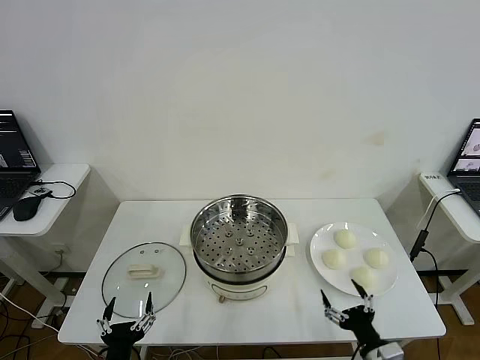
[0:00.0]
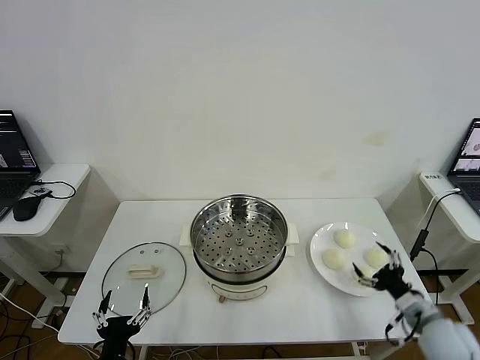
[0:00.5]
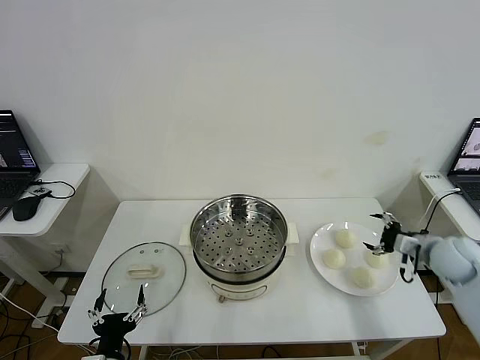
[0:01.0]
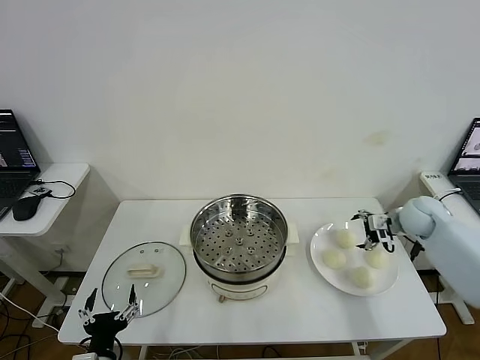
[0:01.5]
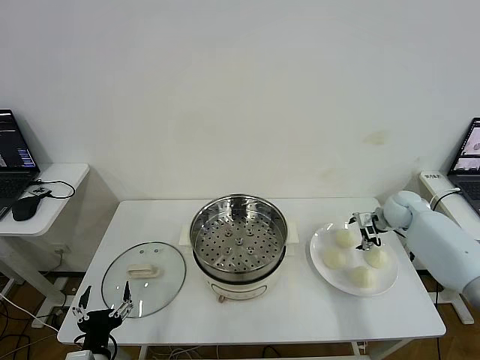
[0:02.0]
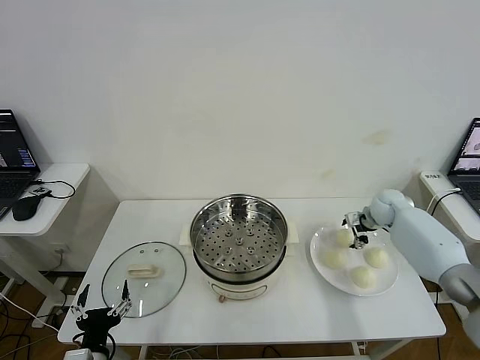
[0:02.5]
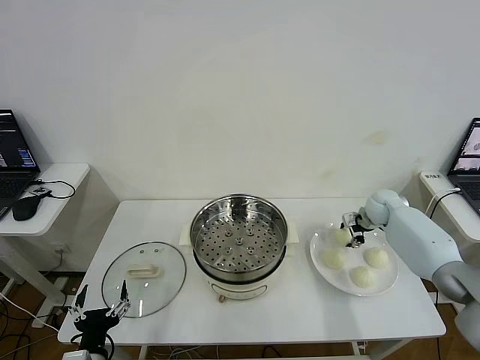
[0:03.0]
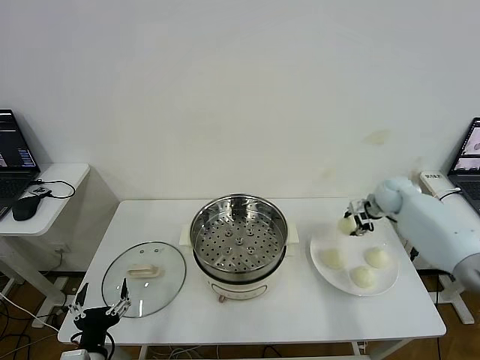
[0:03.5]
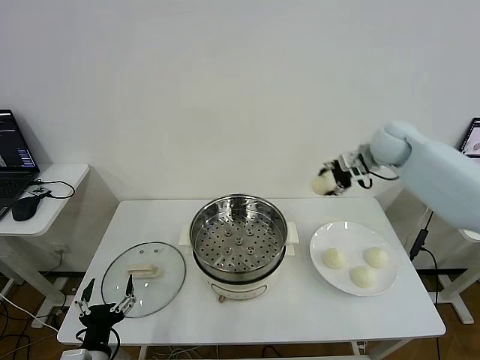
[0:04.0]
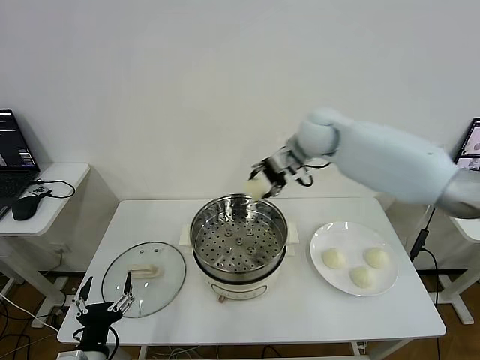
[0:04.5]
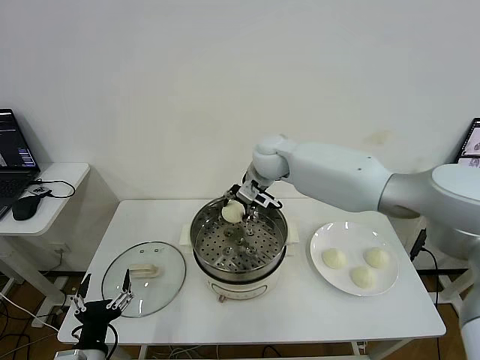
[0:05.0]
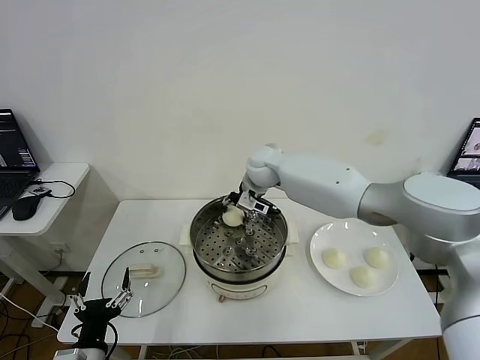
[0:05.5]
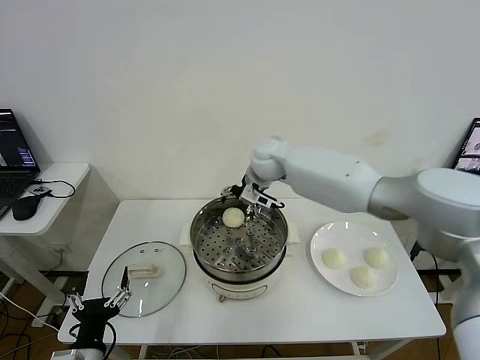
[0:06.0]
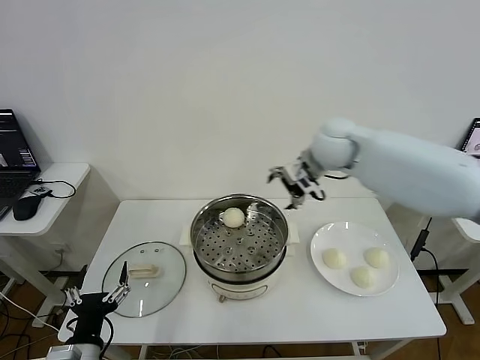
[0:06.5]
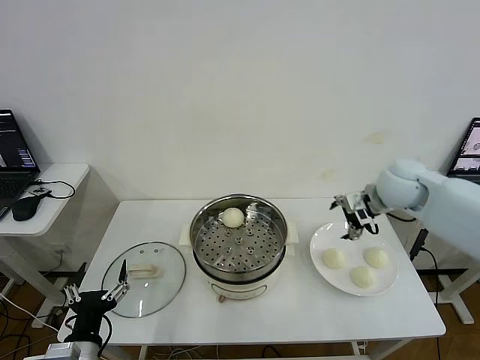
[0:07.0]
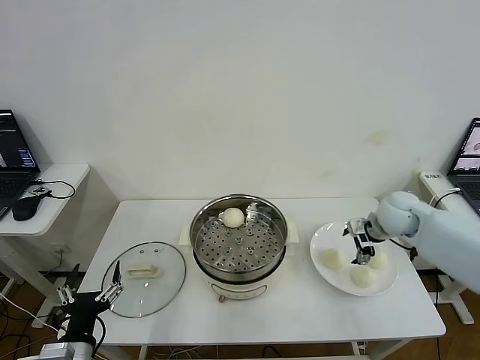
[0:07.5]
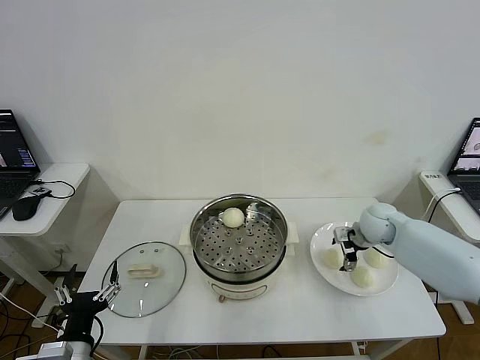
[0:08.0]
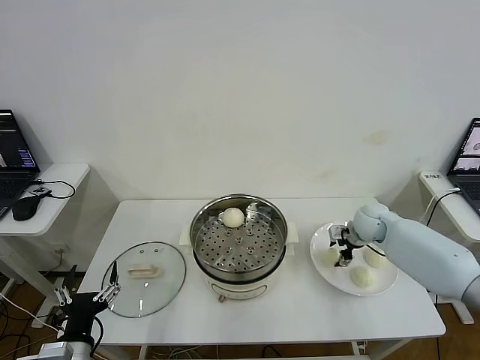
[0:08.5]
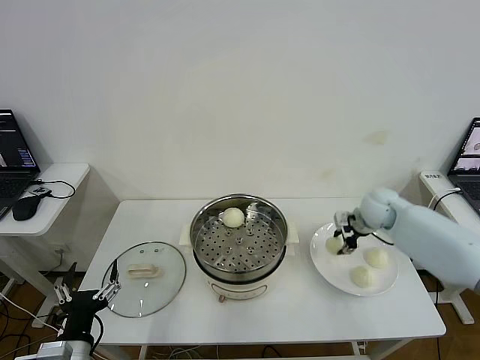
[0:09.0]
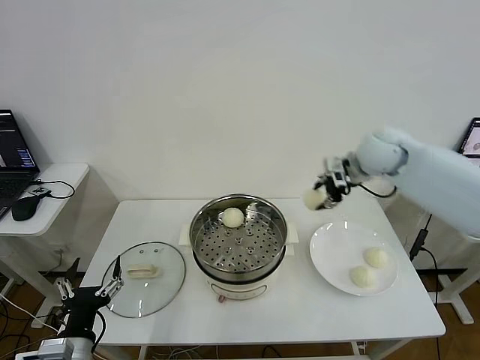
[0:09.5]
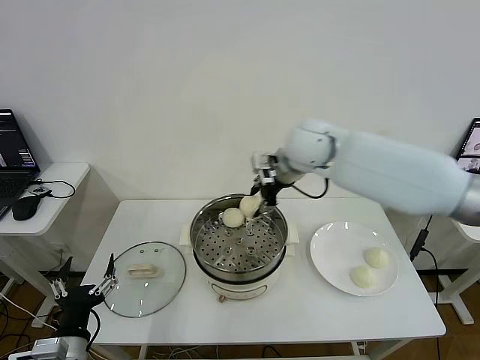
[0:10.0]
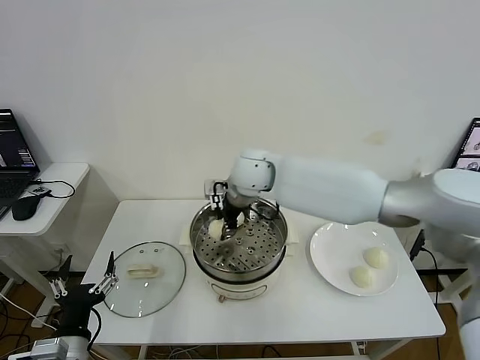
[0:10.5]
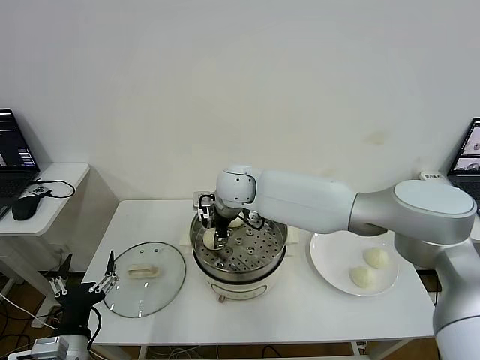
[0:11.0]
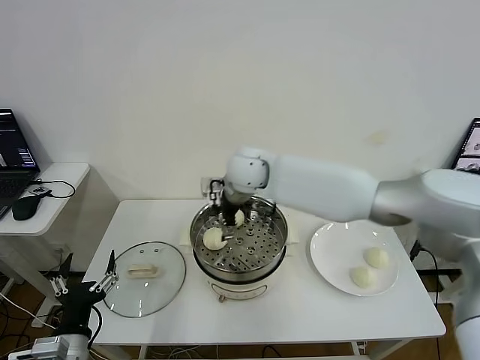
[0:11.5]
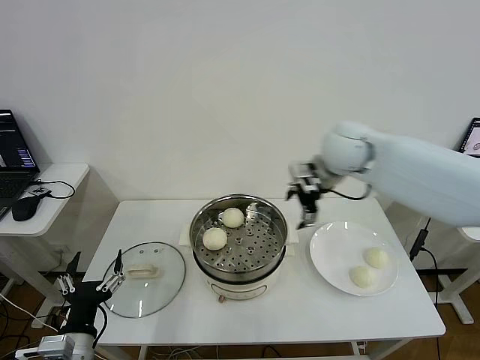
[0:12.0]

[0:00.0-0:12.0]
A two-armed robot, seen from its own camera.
Step, 0:00.0 to 0:02.5: Grasp the baozi in the plate with right gripper.
Step, 0:03.0 to 0:05.5: Place the baozi on the steamer with right gripper.
Step, 0:06.0 to 0:08.5: Grasp the baozi in the plate with right gripper.
Step, 0:09.0 to 0:11.0: Place the baozi on the steamer with right gripper.
0:02.0 to 0:04.0: The right gripper travels upward and to the left by about 25 cm, and closes up.
0:04.0 to 0:06.0: The right gripper travels to the left by about 20 cm, and opens up.
0:06.0 to 0:08.0: The right gripper shifts about 30 cm to the right and downward.
0:08.0 to 0:10.0: The right gripper moves to the left and upward, about 30 cm, and closes its fingers.
0:10.0 to 0:12.0: The right gripper moves to the right, some 15 cm, and opens its fingers.

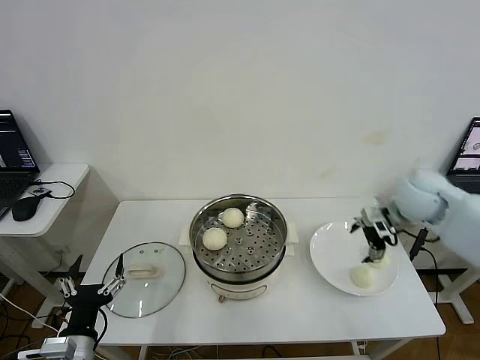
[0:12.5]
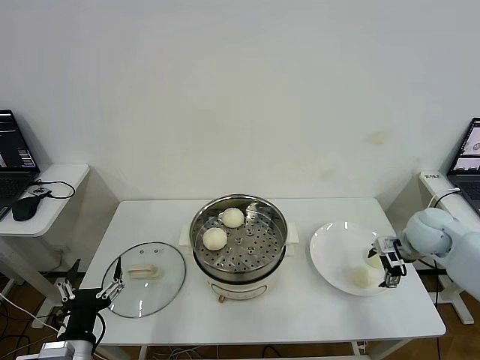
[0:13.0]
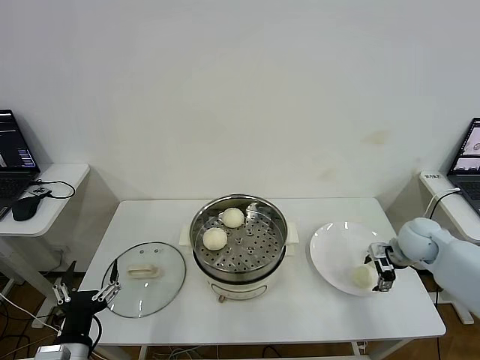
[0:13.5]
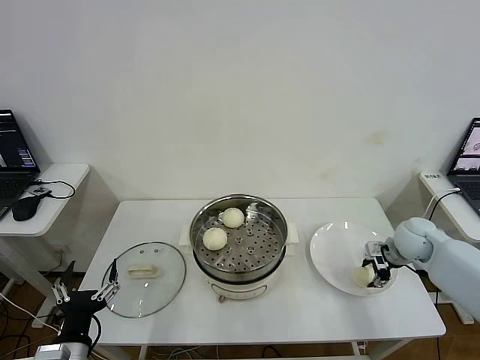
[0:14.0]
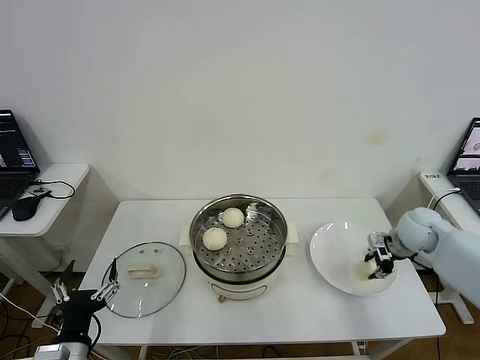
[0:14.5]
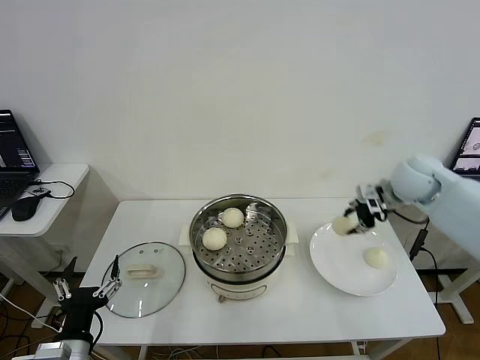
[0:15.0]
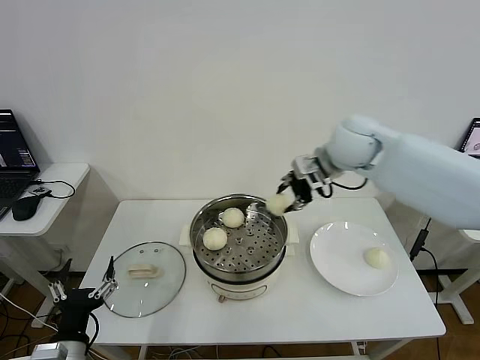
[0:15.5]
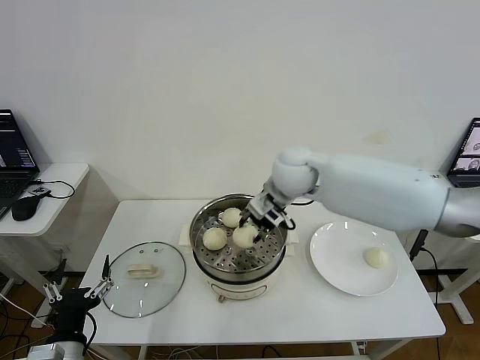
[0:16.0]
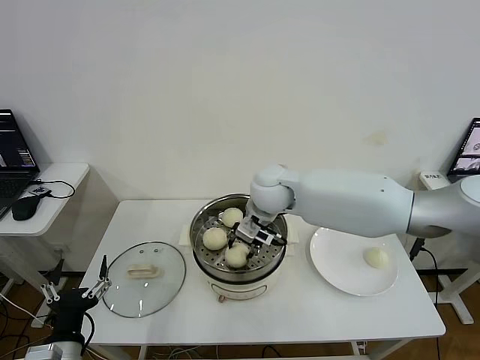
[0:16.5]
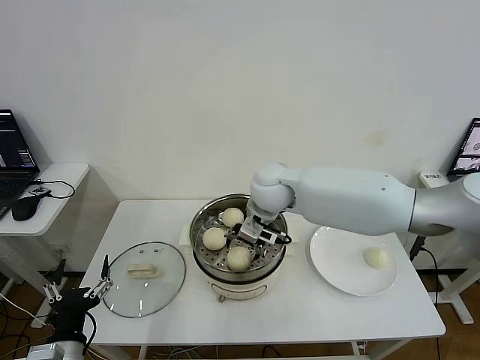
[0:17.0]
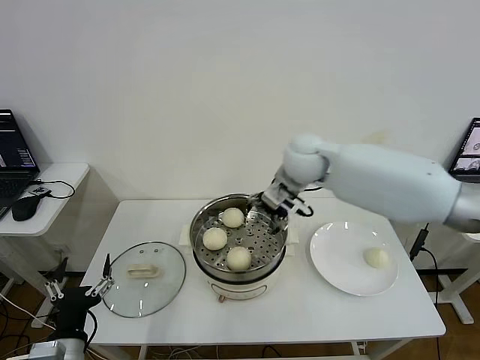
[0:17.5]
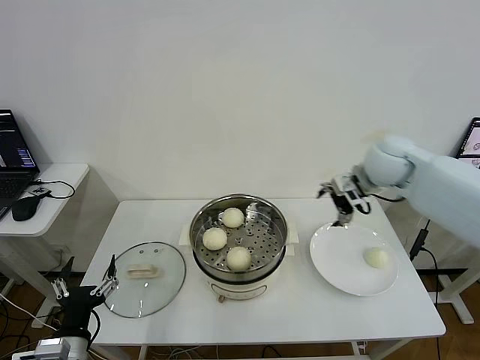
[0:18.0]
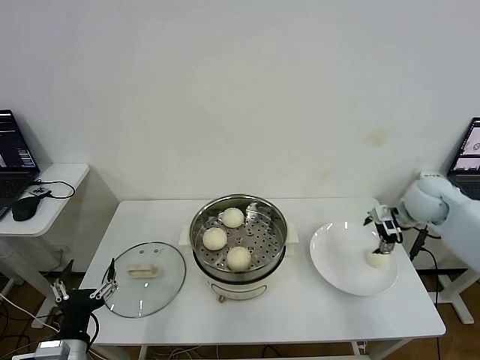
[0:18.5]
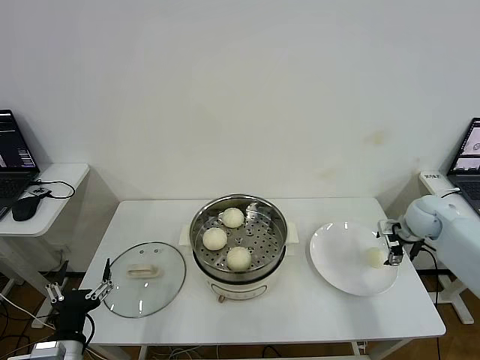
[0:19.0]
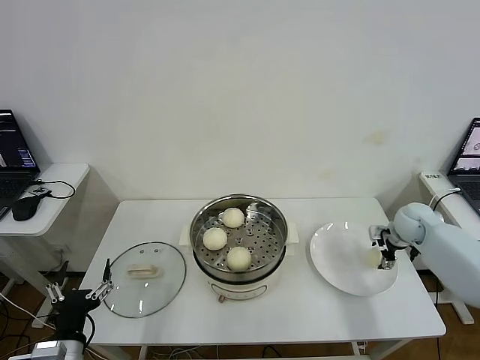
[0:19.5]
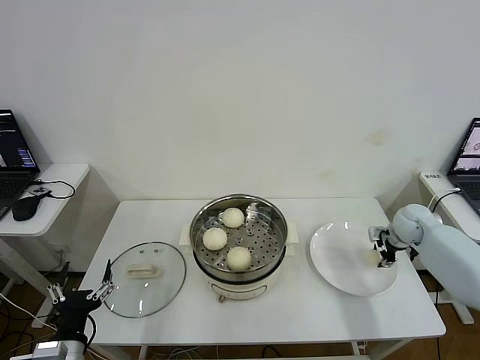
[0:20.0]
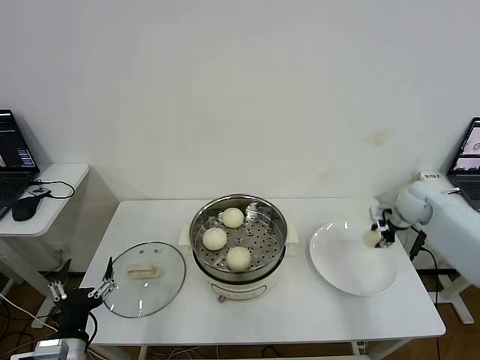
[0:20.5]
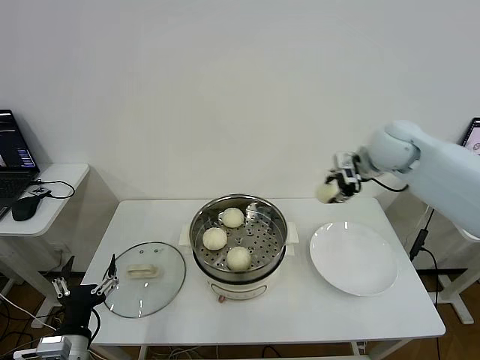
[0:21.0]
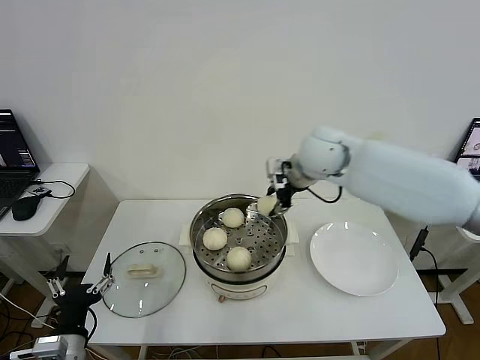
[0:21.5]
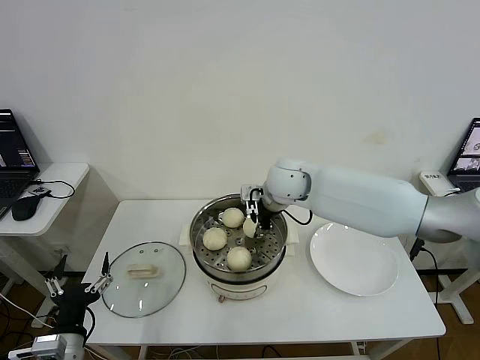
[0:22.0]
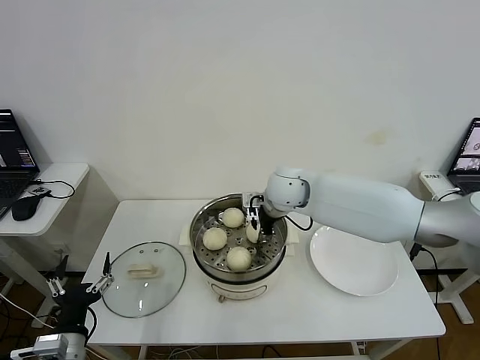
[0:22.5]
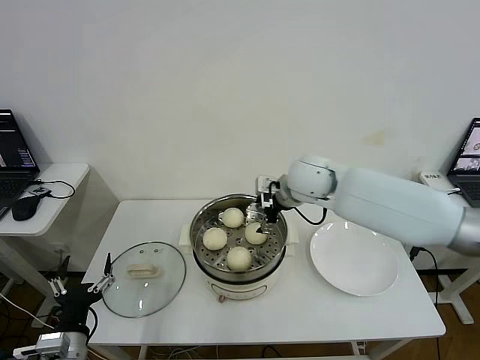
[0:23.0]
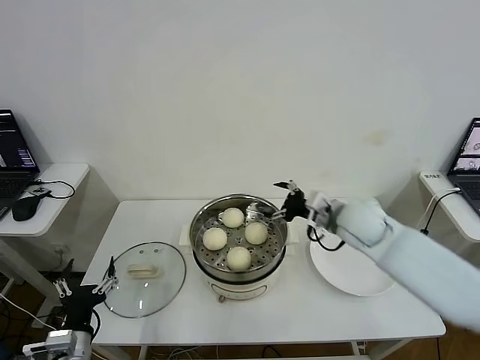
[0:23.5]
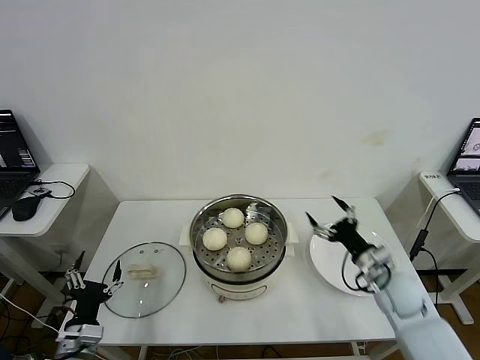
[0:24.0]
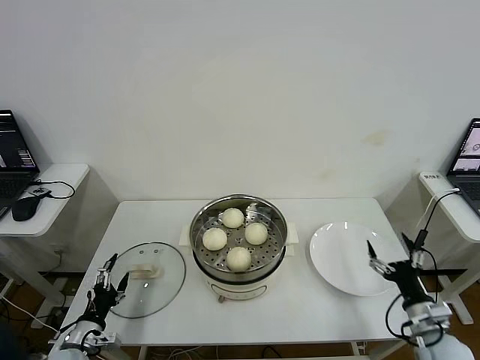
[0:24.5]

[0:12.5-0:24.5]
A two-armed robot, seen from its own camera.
Step, 0:12.5 to 0:14.0: Grasp the baozi in the plate with right gripper.
Step, 0:14.5 to 0:17.0: Place the baozi on the steamer with right gripper.
Step, 0:17.5 to 0:20.0: Grasp the baozi in the plate with right gripper.
Step, 0:20.5 to 0:22.5: Place the baozi on the steamer with right gripper.
0:12.5 to 0:14.5: The right gripper heads downward, covering about 5 cm, and closes.
0:14.5 to 0:16.5: The right gripper travels to the left by approximately 35 cm.
0:16.5 to 0:18.5: The right gripper moves to the right, approximately 35 cm, and opens up.
0:18.5 to 0:20.5: The right gripper reaches about 10 cm downward, then returns, and closes.
0:20.5 to 0:22.5: The right gripper heads to the left, covering roughly 30 cm, and opens up.
0:22.5 to 0:24.5: The right gripper heads to the right, backward and downward, covering some 50 cm, and opens up. Meanwhile the left gripper shifts some 15 cm downward, to the left and forward.

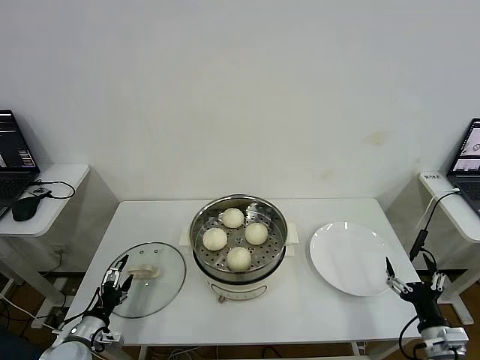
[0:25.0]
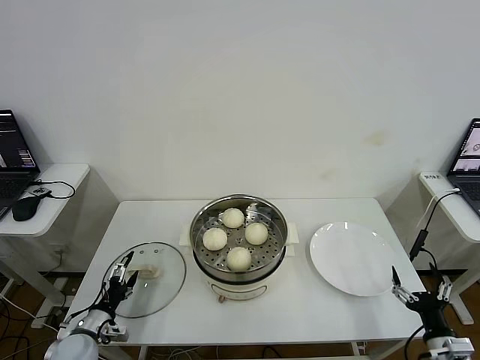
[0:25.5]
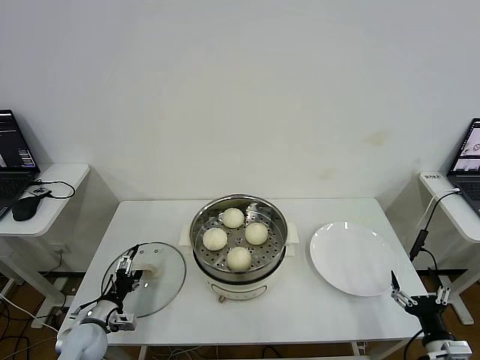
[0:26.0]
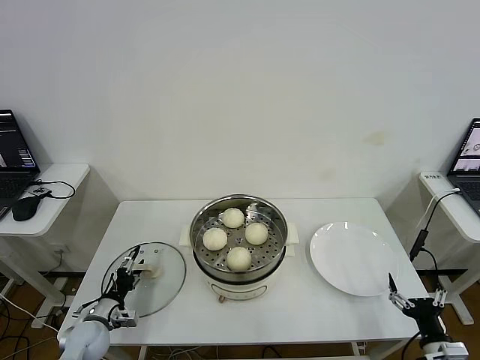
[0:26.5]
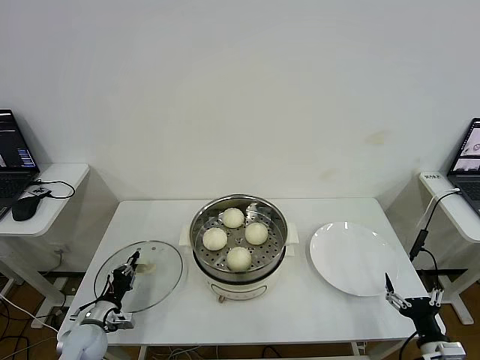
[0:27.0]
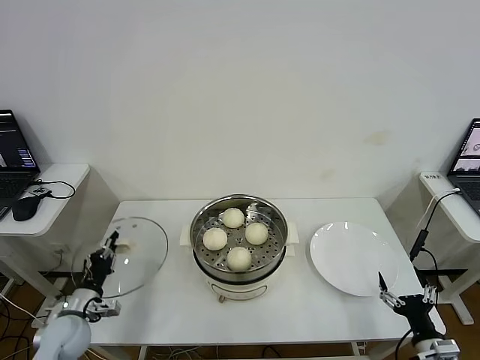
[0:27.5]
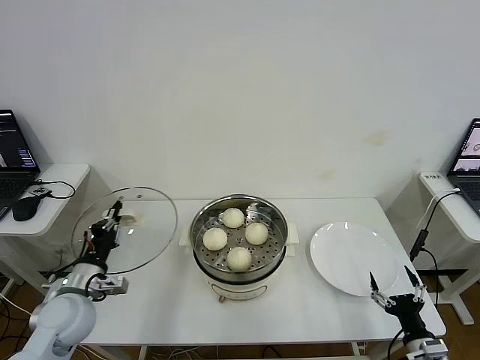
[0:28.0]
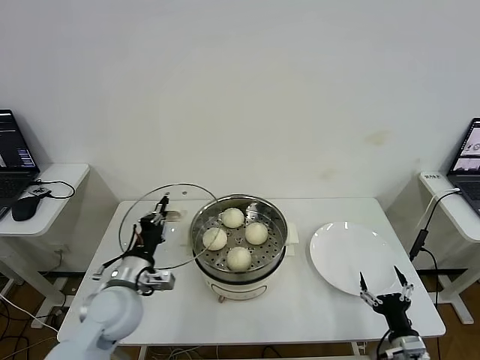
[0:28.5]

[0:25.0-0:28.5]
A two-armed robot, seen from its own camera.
Step, 0:25.0 to 0:27.0: Grasp the pot lid with left gripper.
0:25.0 to 0:27.0: The left gripper ends up approximately 5 cm from where it was, and closes up.
0:27.0 to 0:28.5: The right gripper shifts by roughly 5 cm; the left gripper goes roughly 25 cm upward and to the right.
